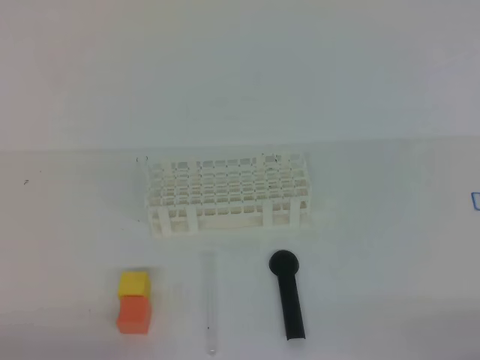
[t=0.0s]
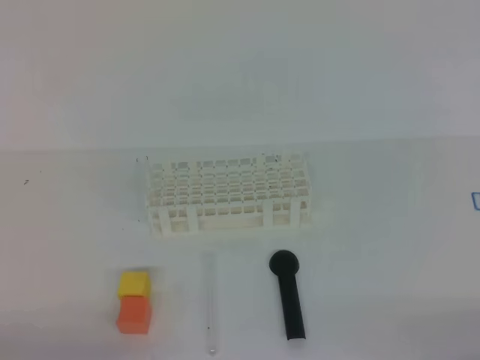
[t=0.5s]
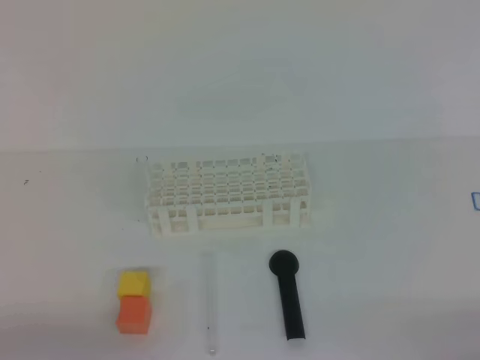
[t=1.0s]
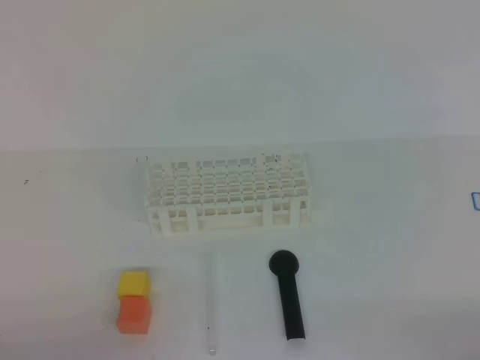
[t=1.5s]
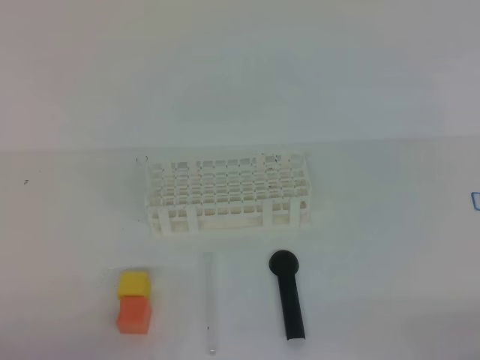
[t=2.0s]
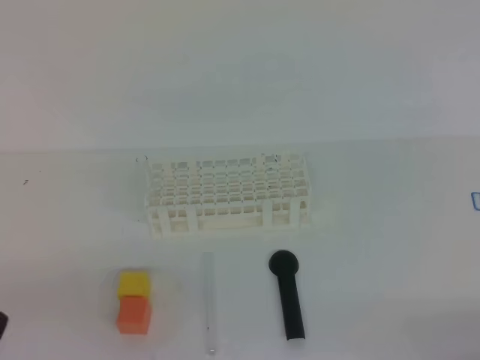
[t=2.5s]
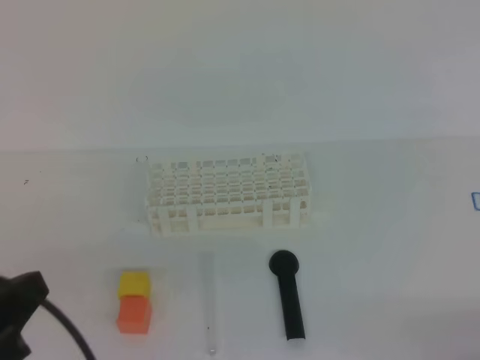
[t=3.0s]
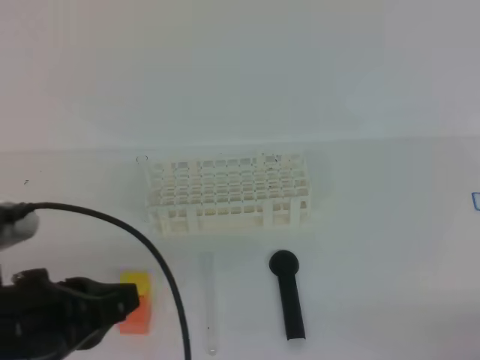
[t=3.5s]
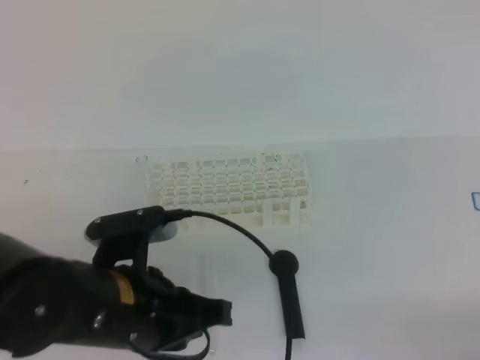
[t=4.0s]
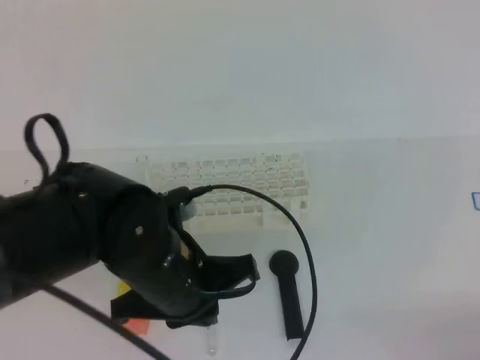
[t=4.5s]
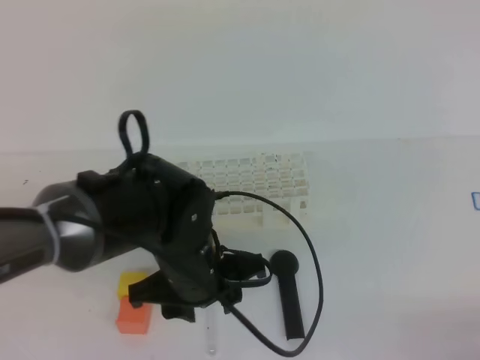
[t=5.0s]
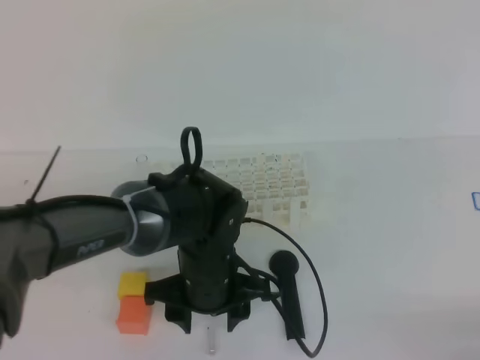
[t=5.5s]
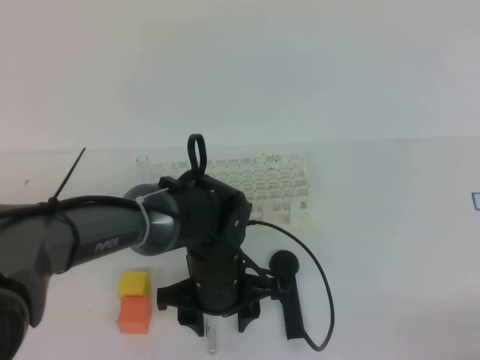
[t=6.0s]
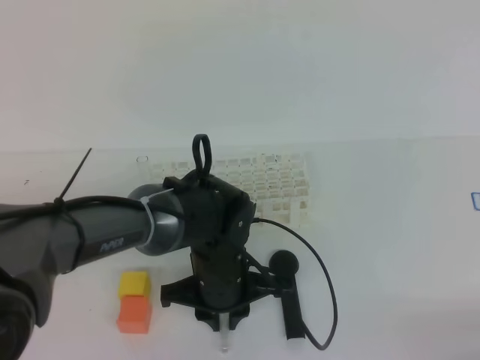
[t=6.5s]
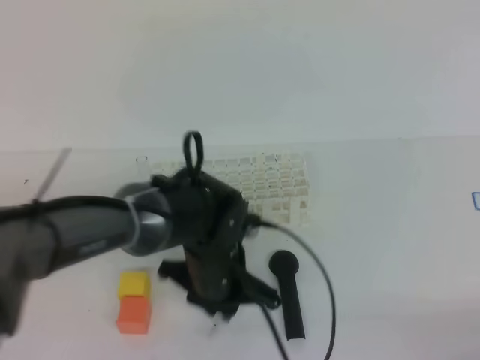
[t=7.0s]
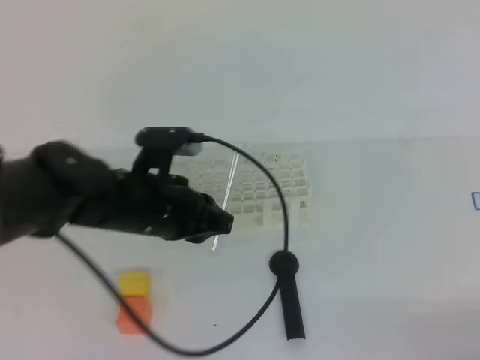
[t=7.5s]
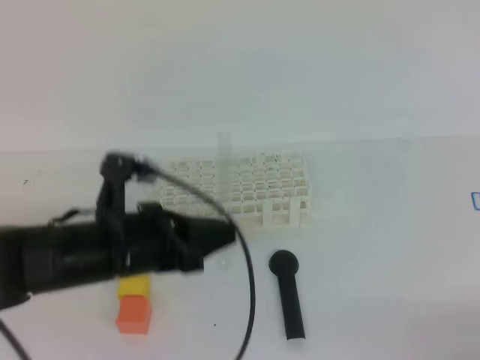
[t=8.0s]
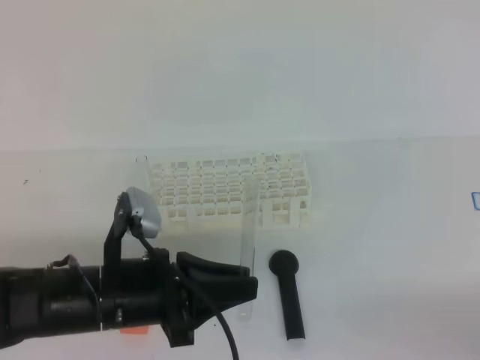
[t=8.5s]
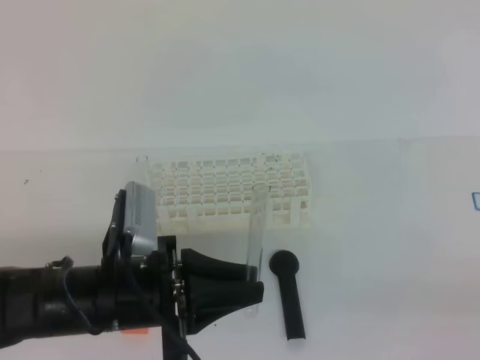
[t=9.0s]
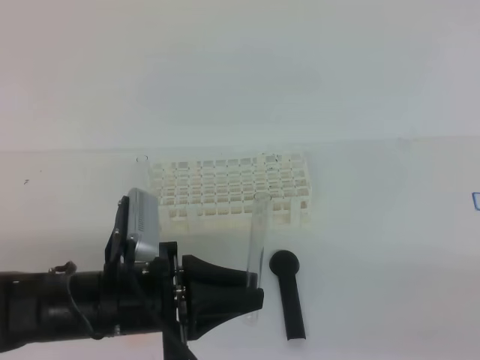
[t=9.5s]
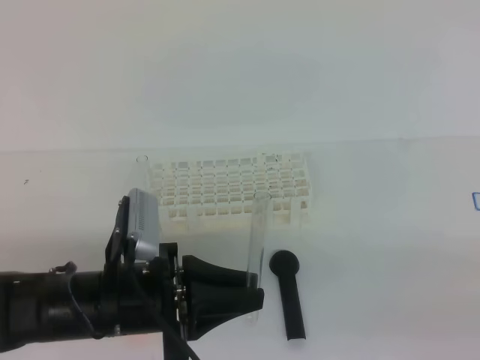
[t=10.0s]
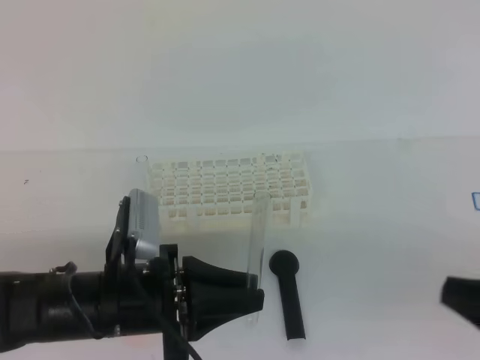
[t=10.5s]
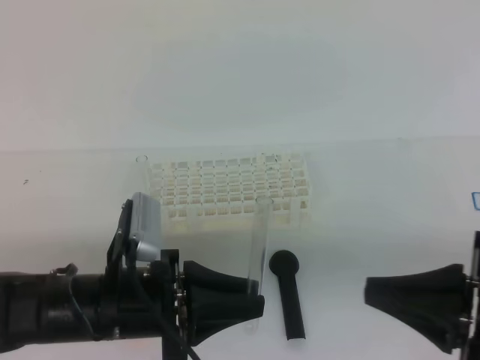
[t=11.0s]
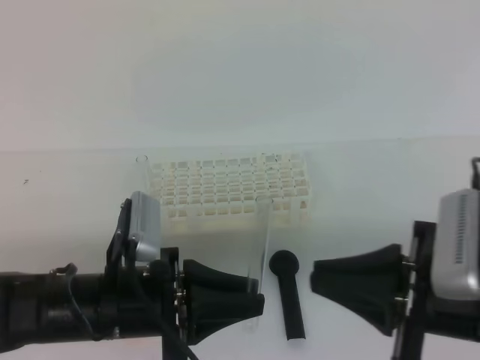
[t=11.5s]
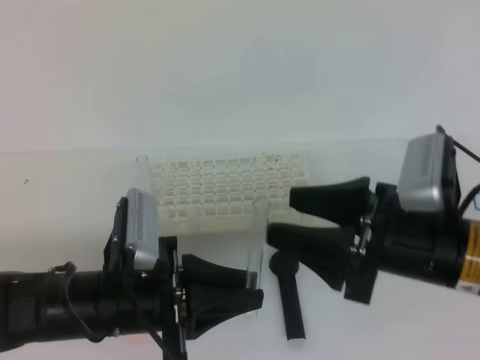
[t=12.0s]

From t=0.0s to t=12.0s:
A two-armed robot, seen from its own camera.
From t=2.0s to t=4.0s: The left gripper travels to the right and forward by about 20 cm.
From t=4.0s to t=6.0s: The left gripper shifts approximately 20 cm downward, forward and to the right, and opens its fingers.
From t=6.0s to t=8.0s: The left gripper is displaced to the left and upward by about 15 cm, and closes up.
From t=8.0s to t=10.0s: The right gripper moves upward and to the left, approximately 10 cm. The left gripper heads backward, covering about 5 cm.
From t=10.0s to t=12.0s: The right gripper heads forward and to the left, covering about 20 cm, and opens.

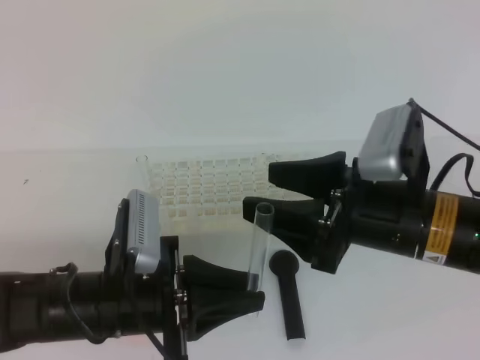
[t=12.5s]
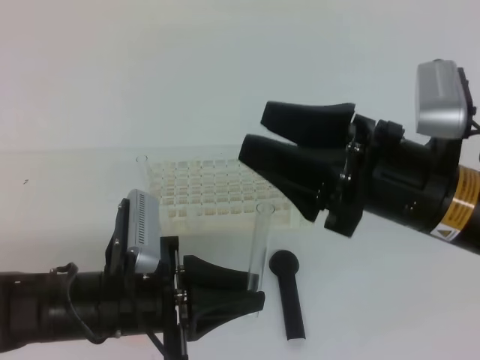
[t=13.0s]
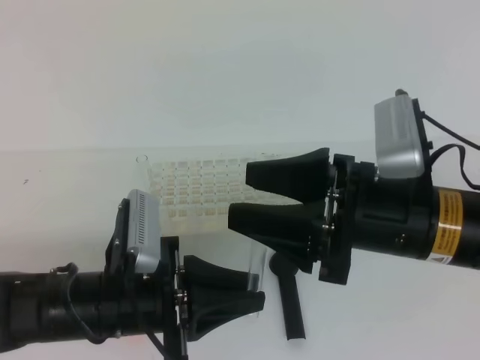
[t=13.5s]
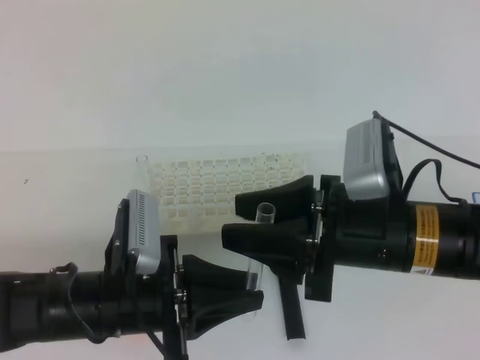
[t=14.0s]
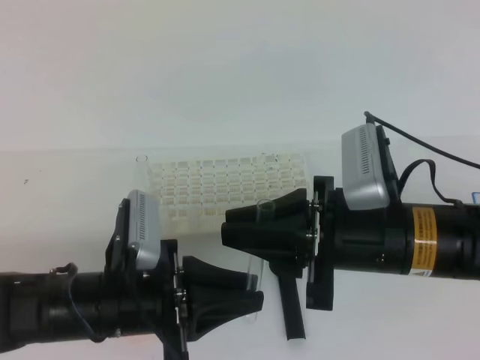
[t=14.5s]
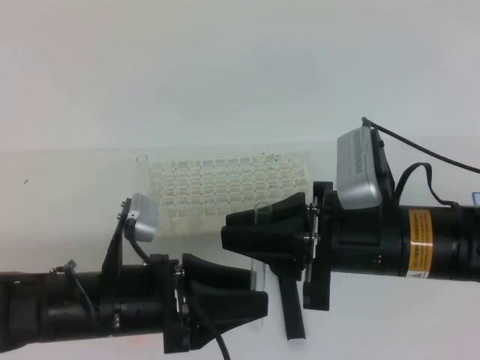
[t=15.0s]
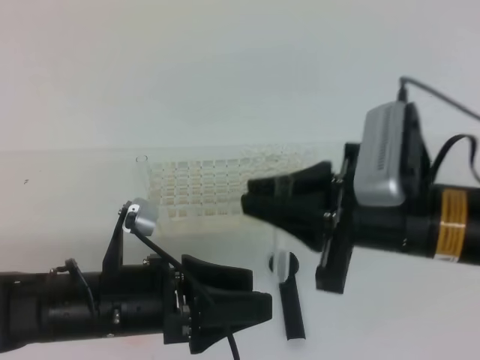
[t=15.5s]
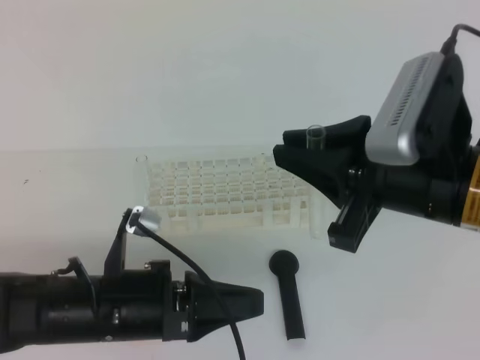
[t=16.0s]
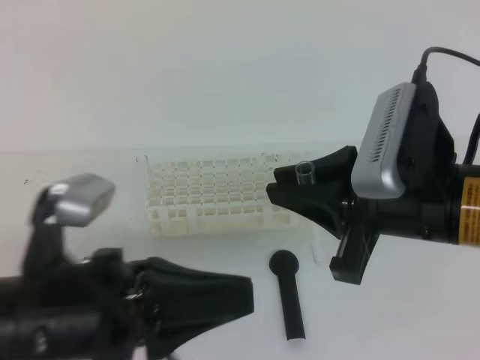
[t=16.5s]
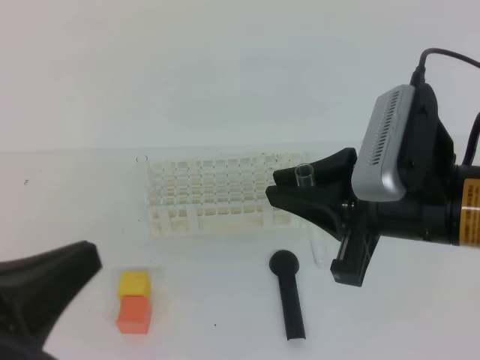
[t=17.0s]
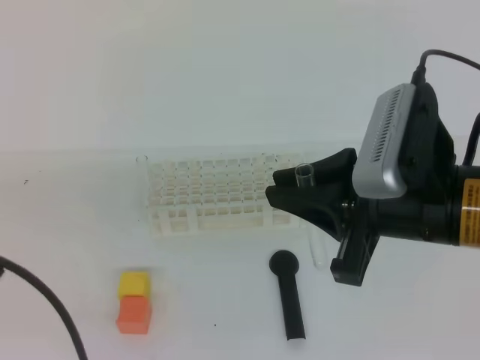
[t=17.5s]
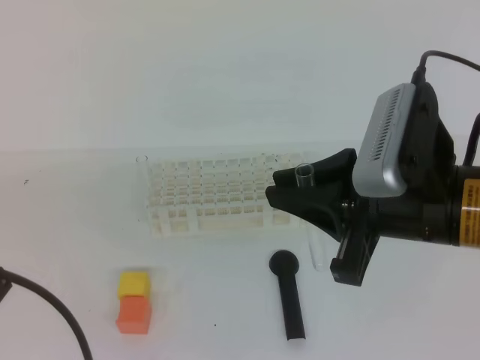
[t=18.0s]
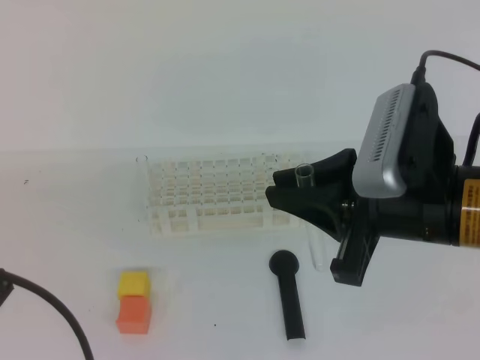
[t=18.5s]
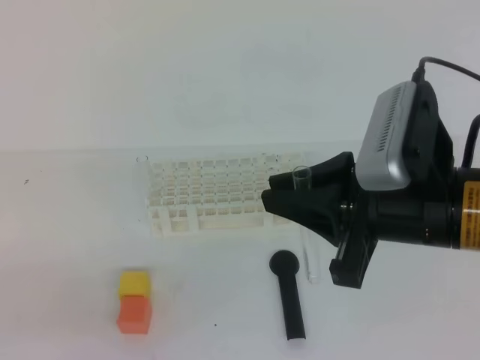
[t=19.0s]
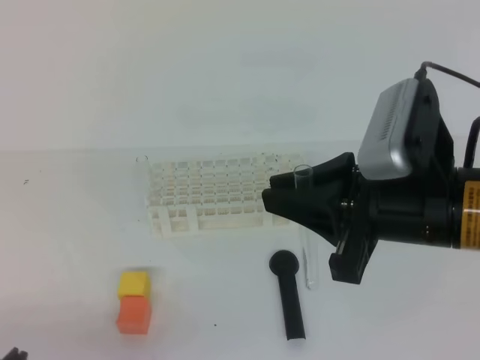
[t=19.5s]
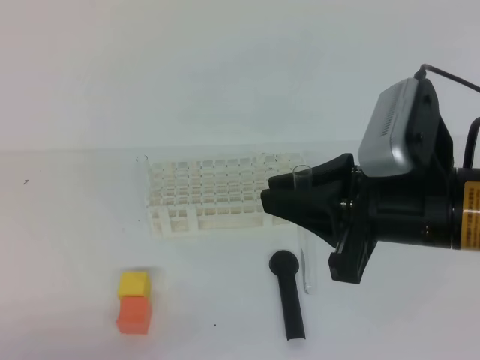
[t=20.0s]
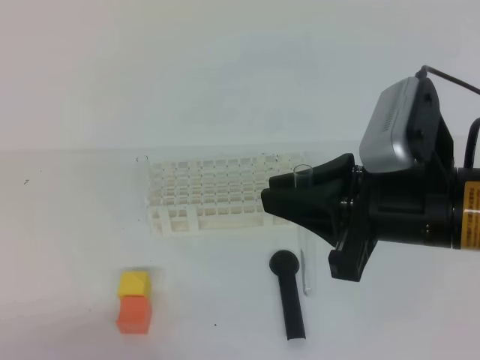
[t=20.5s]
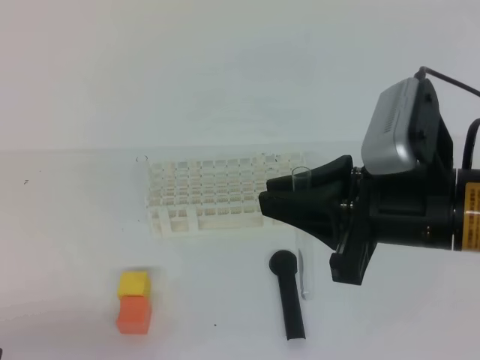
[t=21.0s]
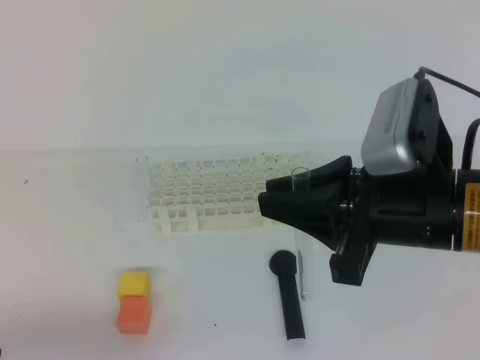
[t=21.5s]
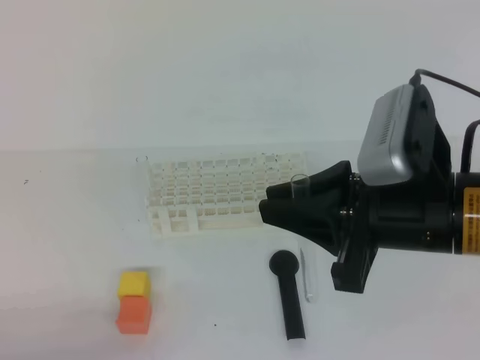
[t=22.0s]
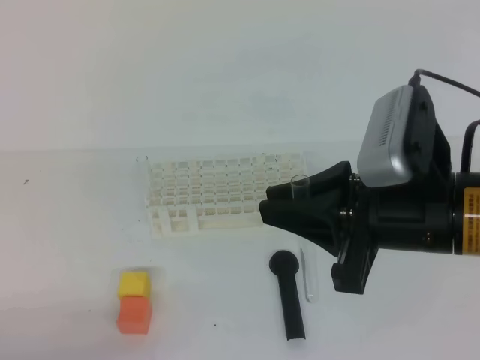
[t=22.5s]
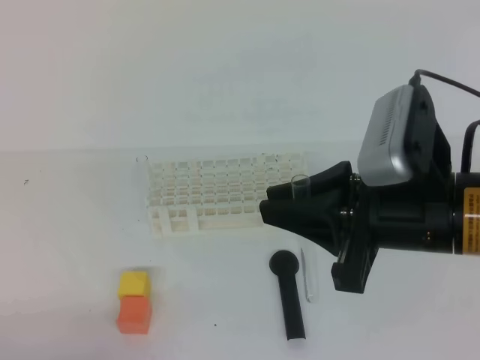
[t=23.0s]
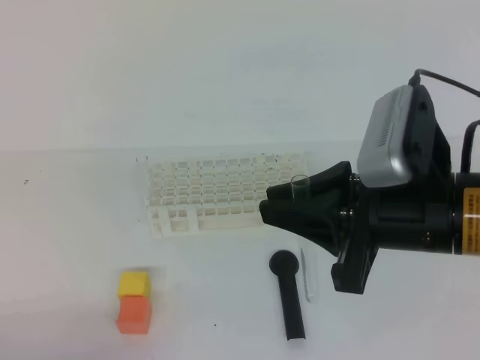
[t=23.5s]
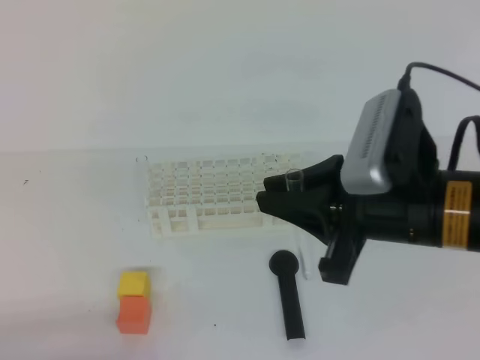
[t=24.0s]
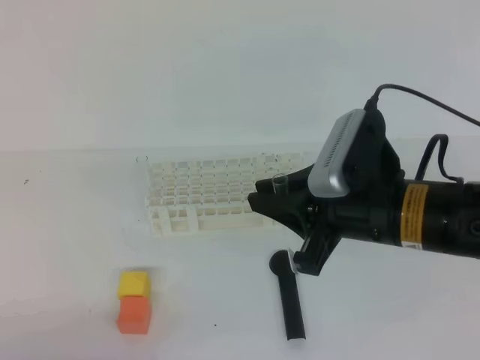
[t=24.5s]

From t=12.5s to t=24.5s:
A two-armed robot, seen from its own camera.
From t=12.5s to t=14.5s: The right gripper closes up.
From t=14.5s to t=16.5s: The right gripper moves approximately 5 cm; the left gripper goes roughly 5 cm upward, and opens, then closes again.
From t=16.5s to t=18.5s: The left gripper shifts approximately 15 cm to the left and upward.
From t=18.5s to t=20.5s: The left gripper heads downward, covering roughly 15 cm.
From t=22.5s to t=24.5s: The right gripper ends up about 5 cm from where it was.

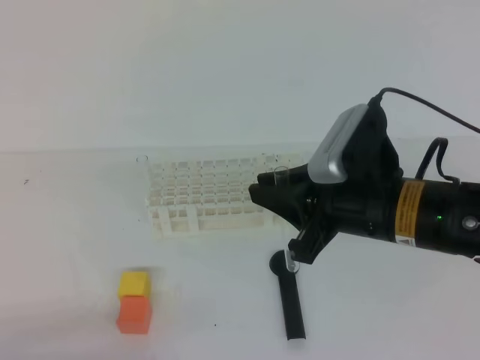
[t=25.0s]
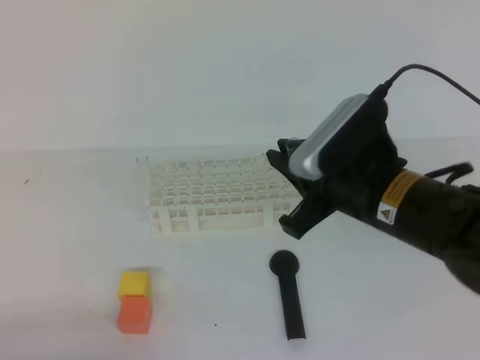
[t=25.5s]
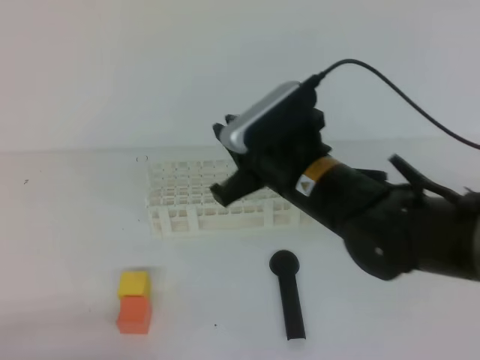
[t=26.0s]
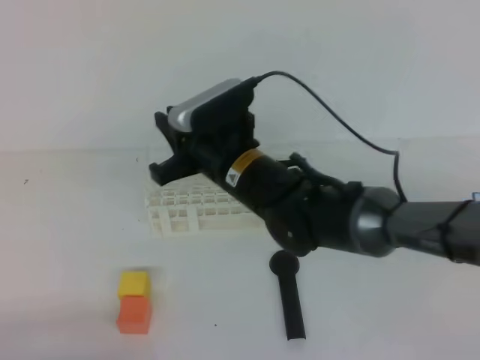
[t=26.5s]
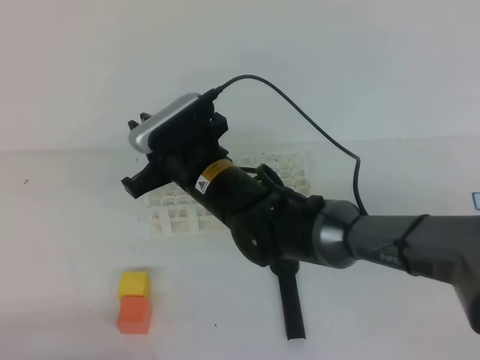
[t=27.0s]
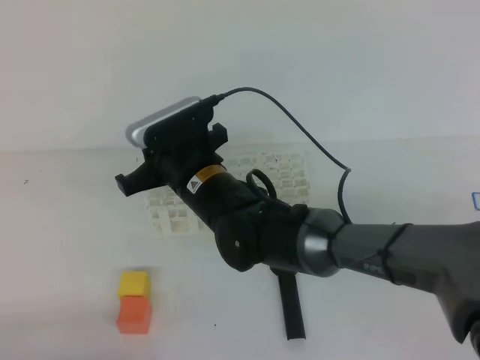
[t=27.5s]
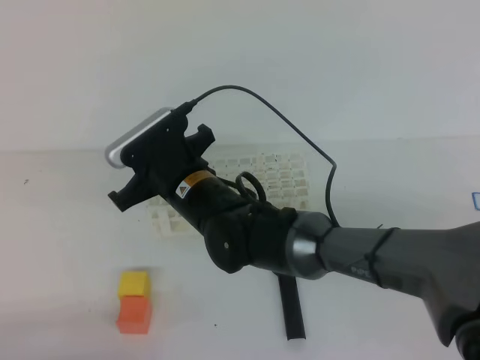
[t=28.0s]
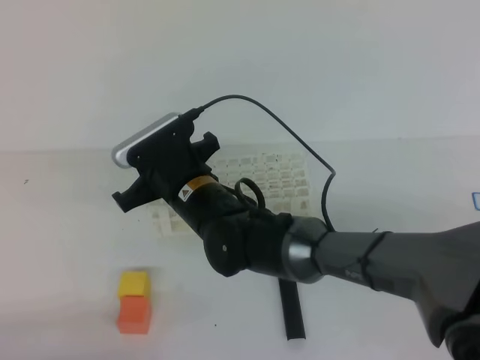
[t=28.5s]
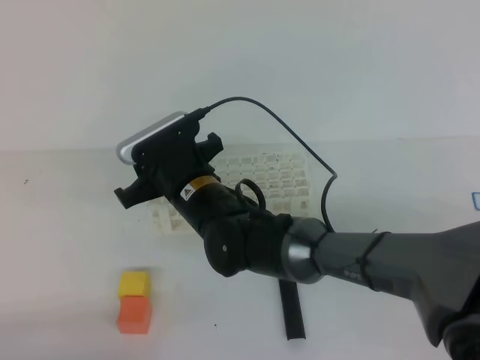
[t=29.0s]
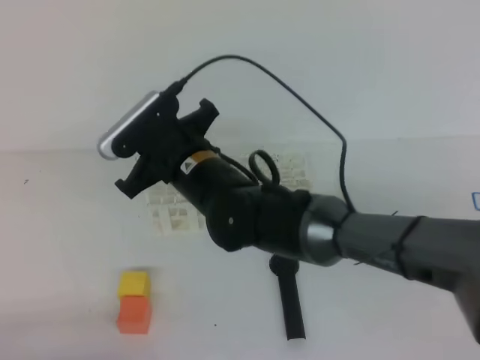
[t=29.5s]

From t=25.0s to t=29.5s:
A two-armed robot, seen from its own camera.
From t=25.0s to t=27.0s: The right gripper moves to the left and forward, about 20 cm.
From t=27.0s to t=29.5s: The grippers move only a little.
